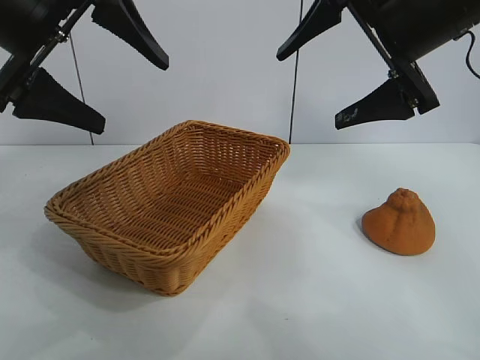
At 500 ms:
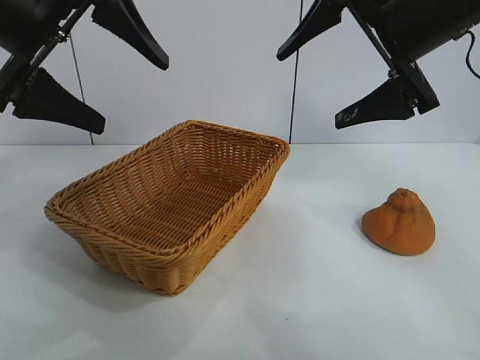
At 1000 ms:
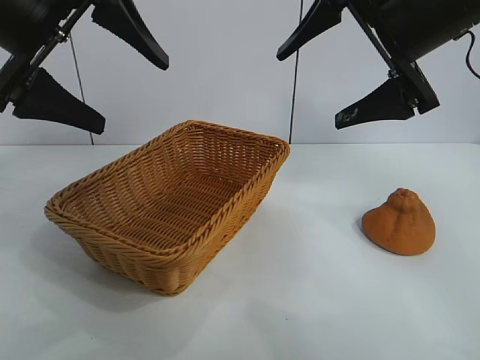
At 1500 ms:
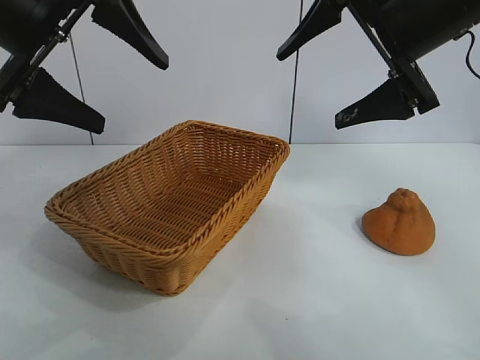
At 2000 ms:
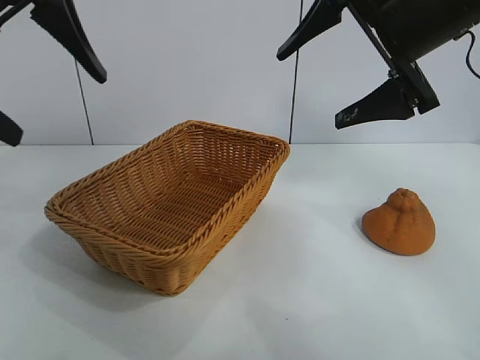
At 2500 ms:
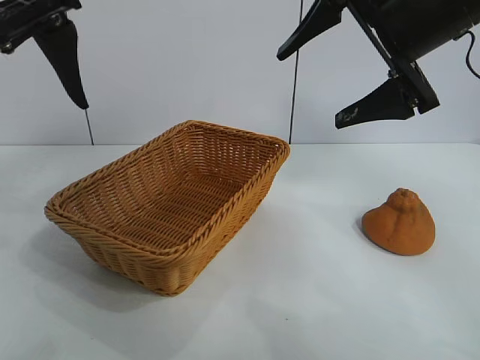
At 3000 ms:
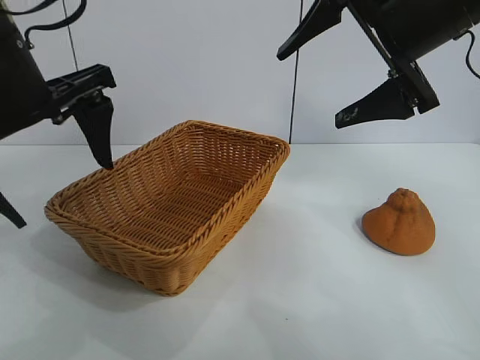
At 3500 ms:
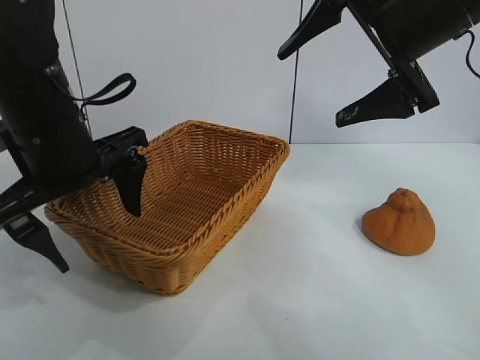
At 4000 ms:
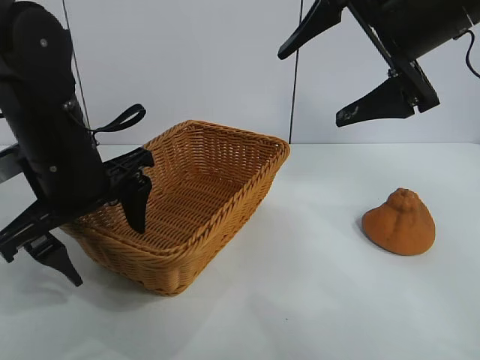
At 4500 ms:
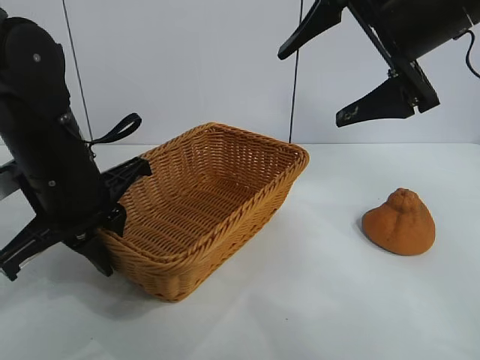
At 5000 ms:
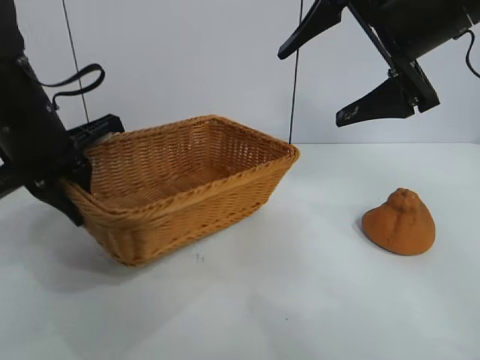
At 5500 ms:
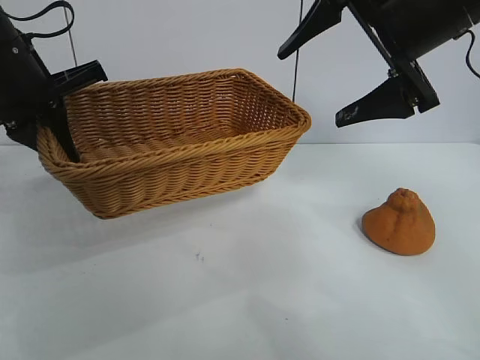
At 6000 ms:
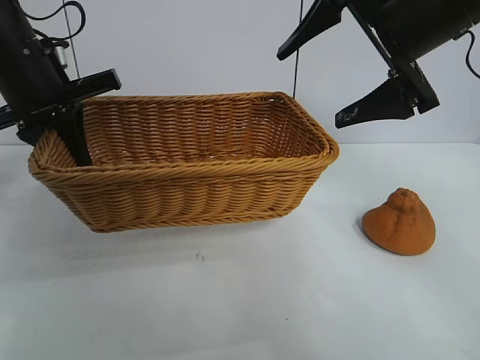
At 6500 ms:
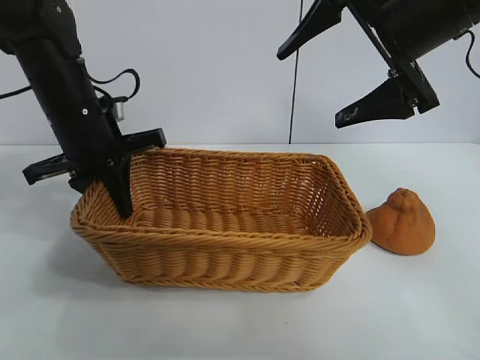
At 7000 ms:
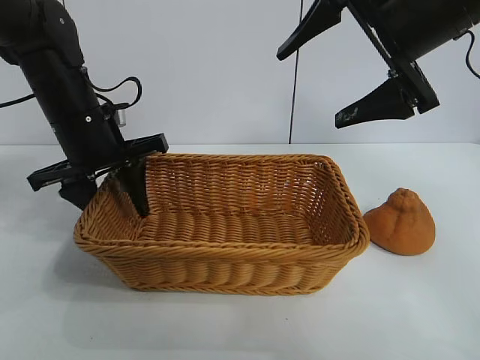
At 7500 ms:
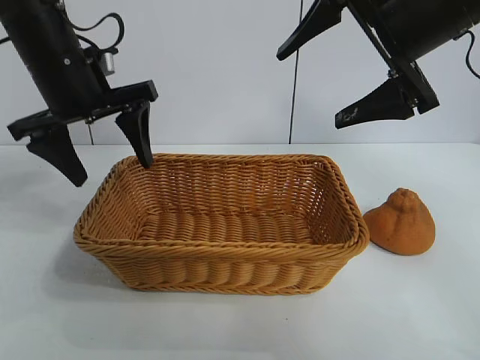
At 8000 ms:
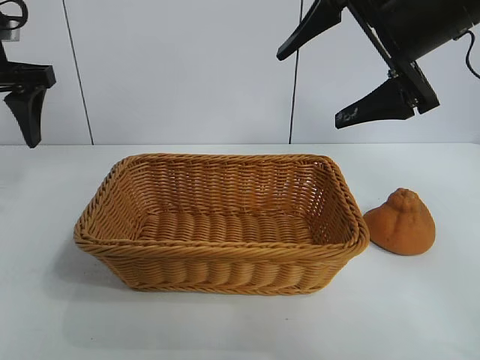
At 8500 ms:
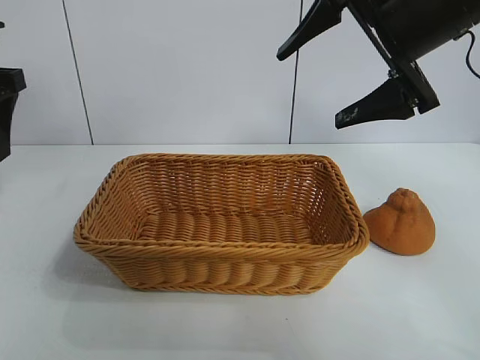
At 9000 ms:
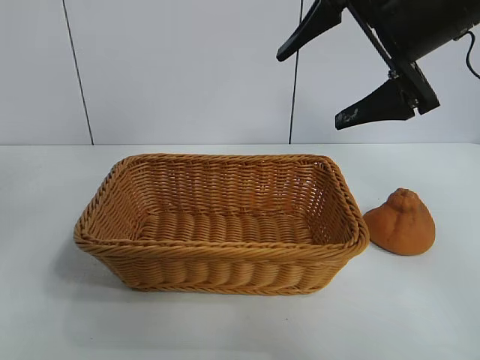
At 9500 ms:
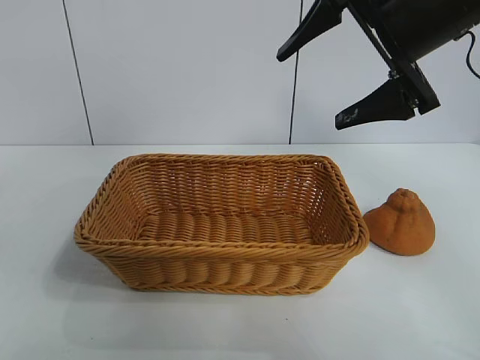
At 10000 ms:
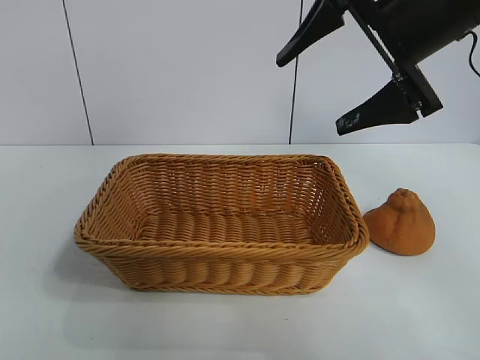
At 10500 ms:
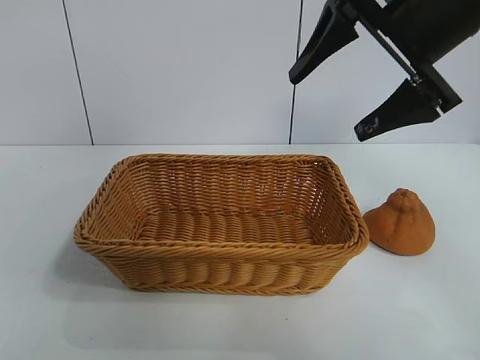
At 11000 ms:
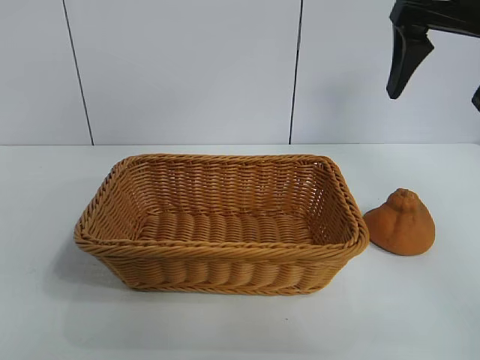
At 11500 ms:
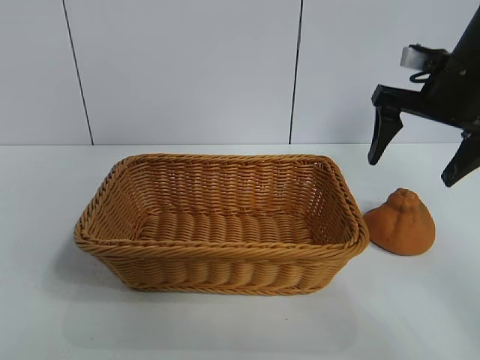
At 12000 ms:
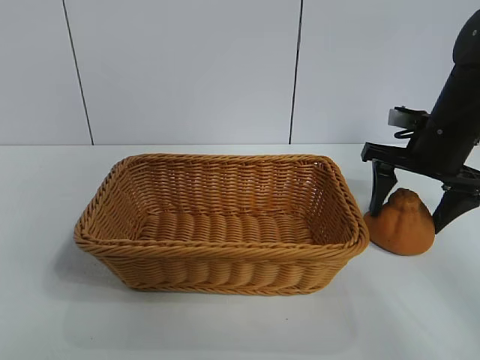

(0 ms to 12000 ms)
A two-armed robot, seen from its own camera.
Task of the whole recording: pick up the orange and put it into the basket.
Step, 2000 ms - 4000 ms: Grasp the basket with left gripper.
Step, 4500 ms - 7000 ms: Place the basket in the center of view with left gripper.

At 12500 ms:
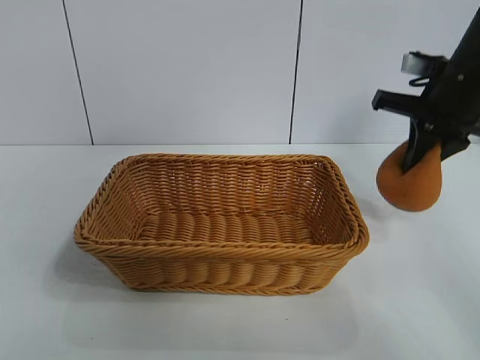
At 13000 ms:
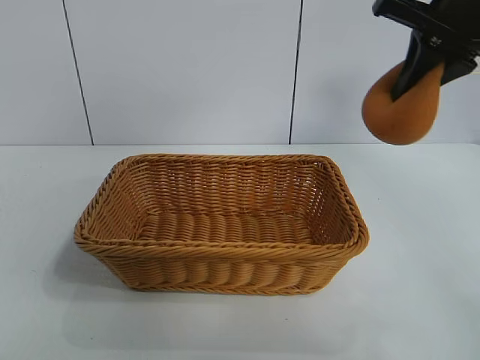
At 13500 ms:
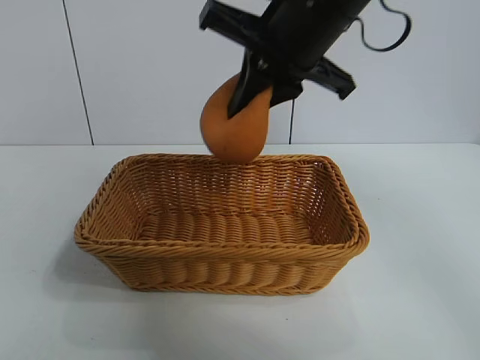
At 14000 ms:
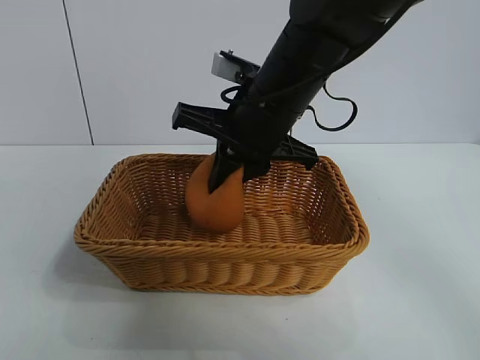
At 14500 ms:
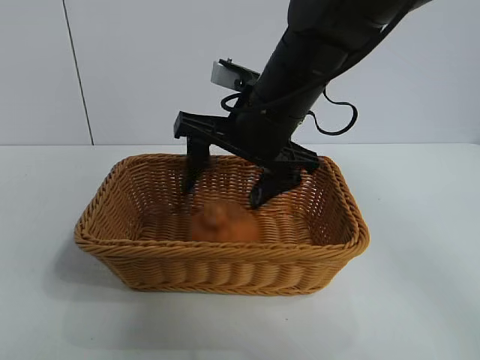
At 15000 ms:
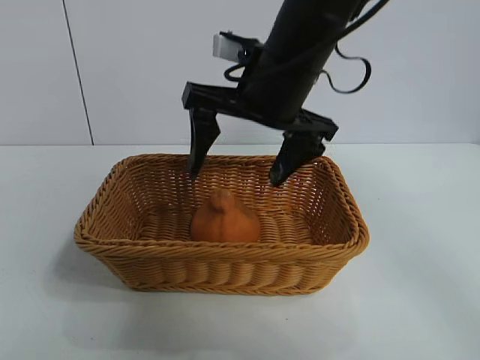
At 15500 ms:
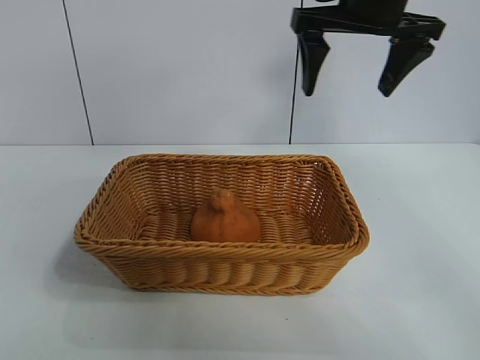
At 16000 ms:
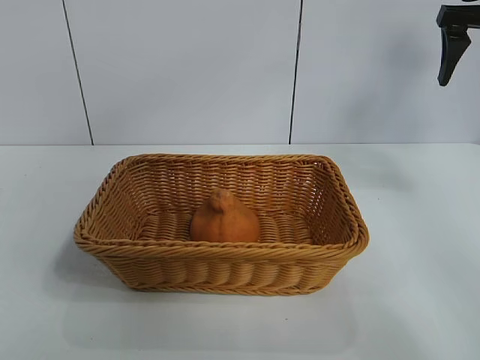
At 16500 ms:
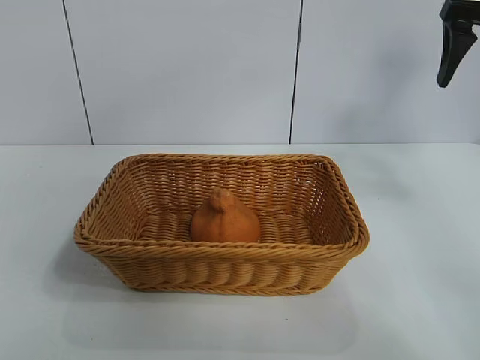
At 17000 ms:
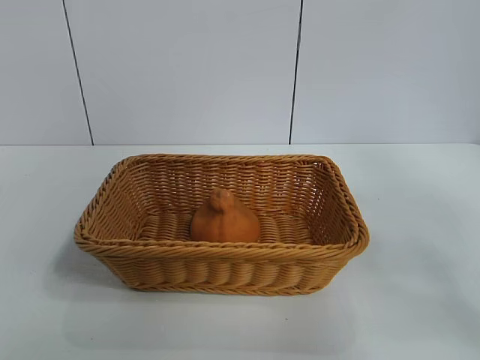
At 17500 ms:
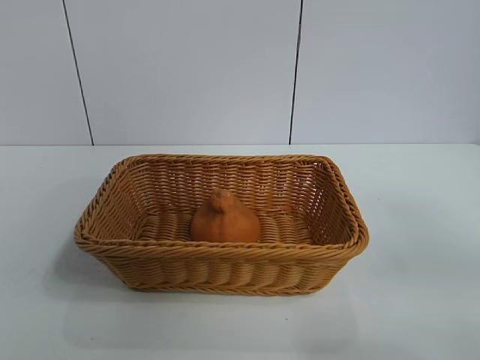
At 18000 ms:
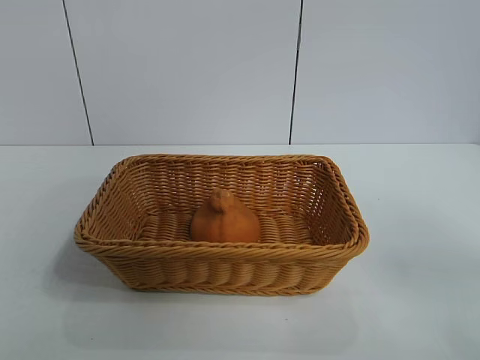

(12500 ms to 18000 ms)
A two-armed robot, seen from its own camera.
Task of the whole recording: pick up the orange and put it into the basket.
Step, 12500 ms - 14500 ms: Place the orange in the basket with right gripper.

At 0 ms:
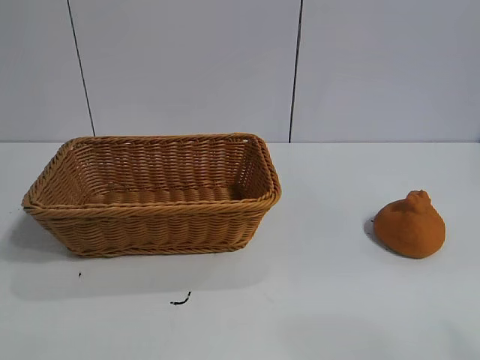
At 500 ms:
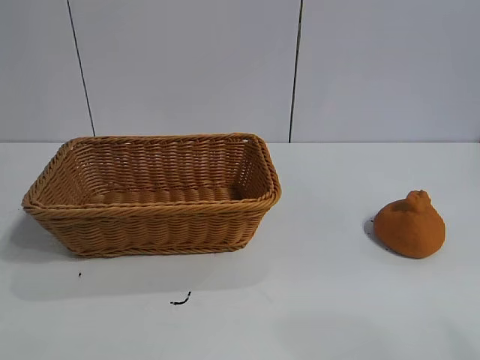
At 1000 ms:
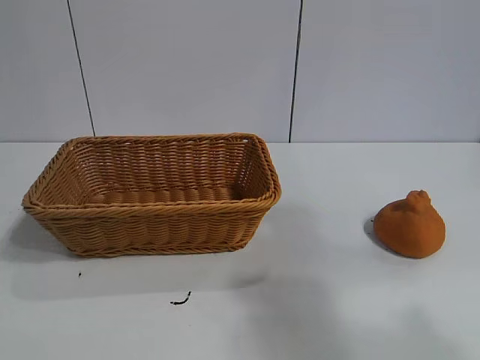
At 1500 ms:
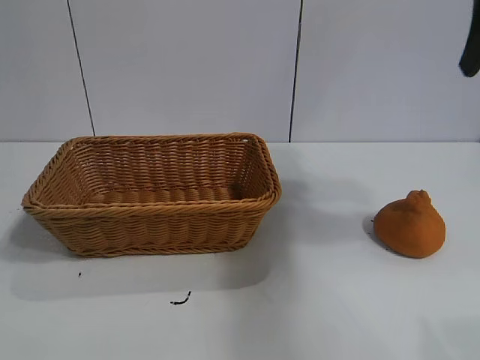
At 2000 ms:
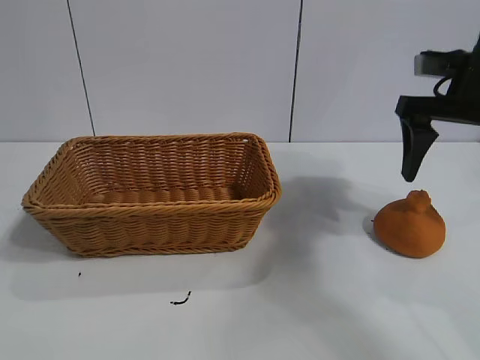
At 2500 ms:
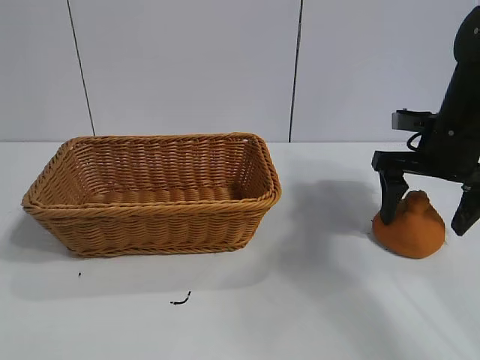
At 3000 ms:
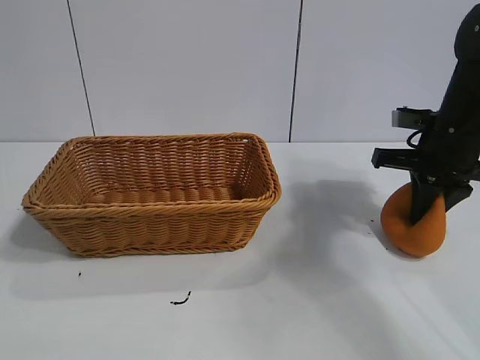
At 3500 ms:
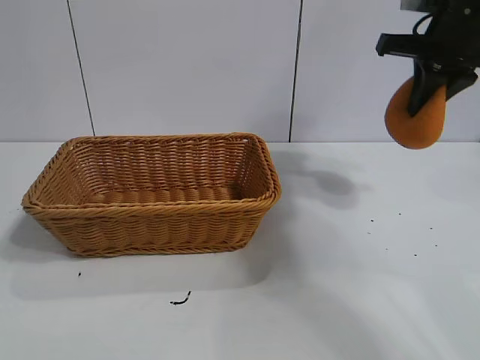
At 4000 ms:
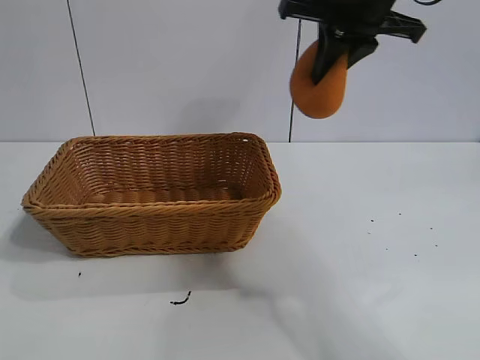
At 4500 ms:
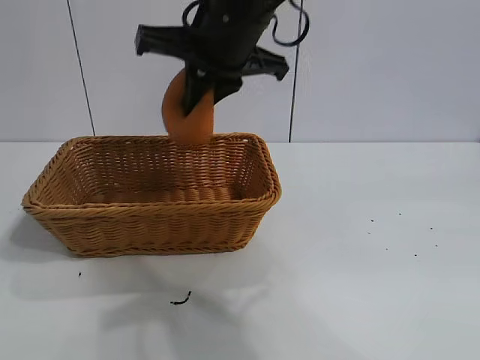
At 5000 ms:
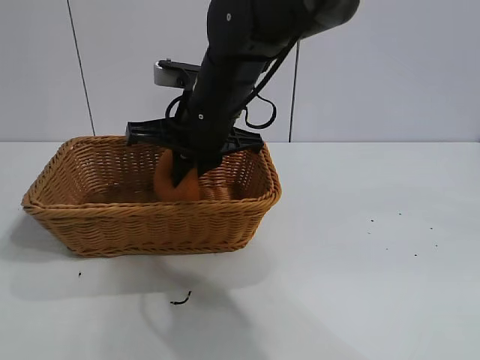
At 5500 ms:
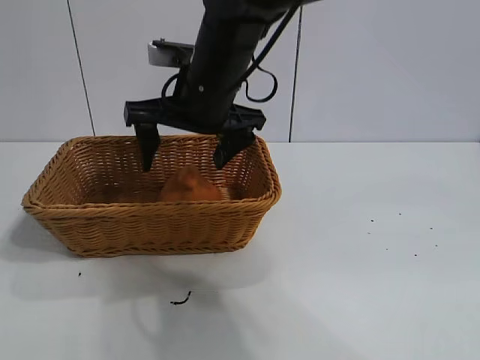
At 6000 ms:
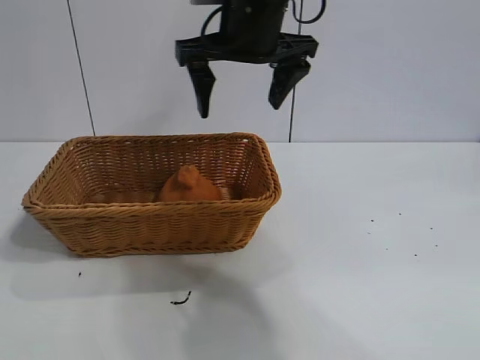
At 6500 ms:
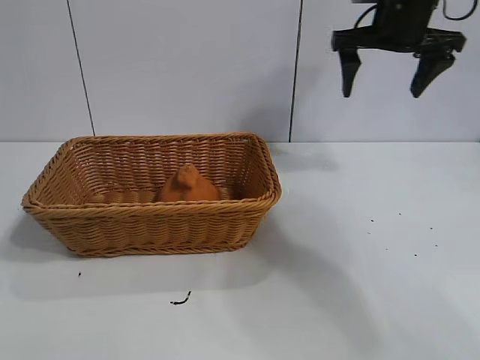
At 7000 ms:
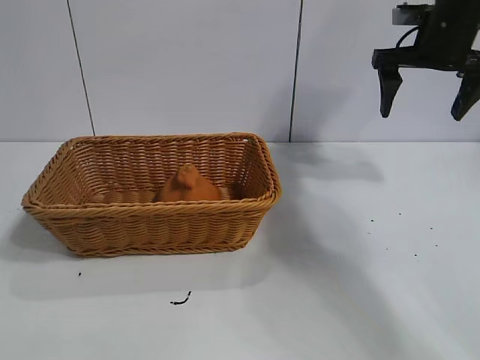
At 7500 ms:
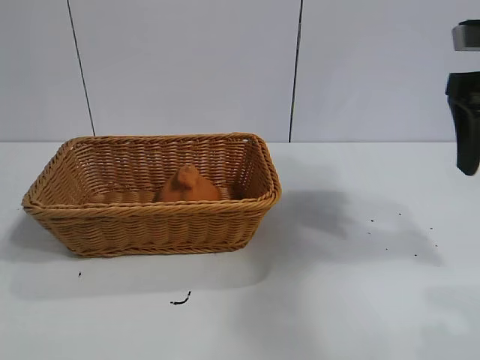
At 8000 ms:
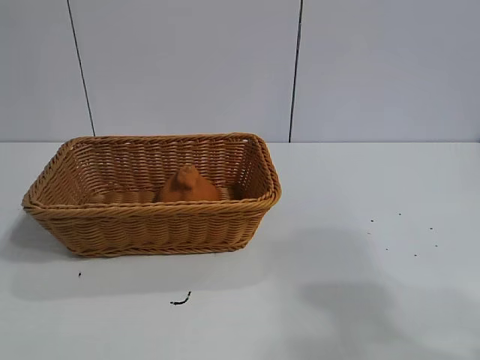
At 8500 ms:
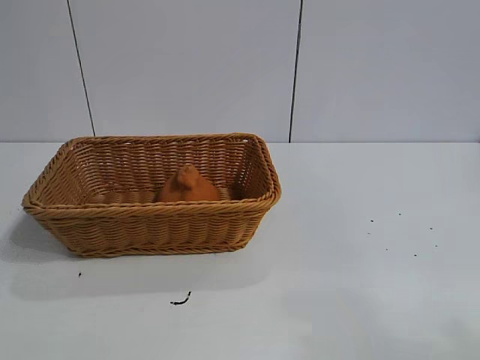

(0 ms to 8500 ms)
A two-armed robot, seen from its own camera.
Task of the whole recording: pick up the orange and put it into the basket.
Step, 1000 ms - 2500 ms: Grasp the orange with right gripper.
Step, 3000 ms - 5500 ms: Place the orange in the basket with right gripper.
